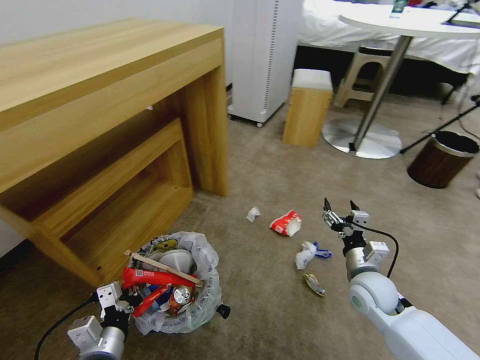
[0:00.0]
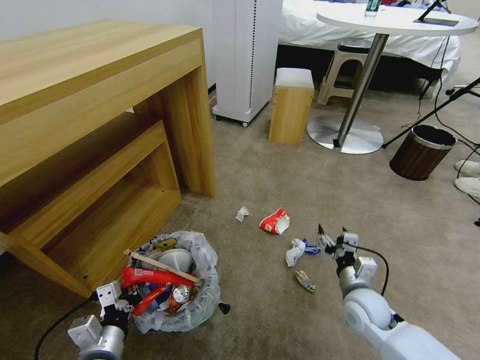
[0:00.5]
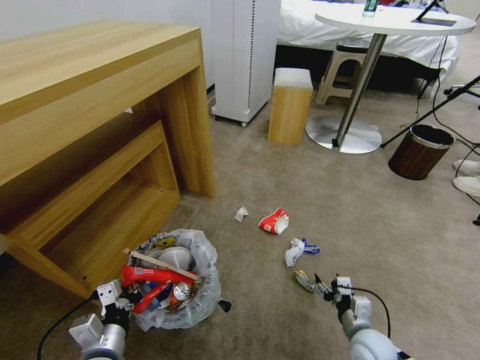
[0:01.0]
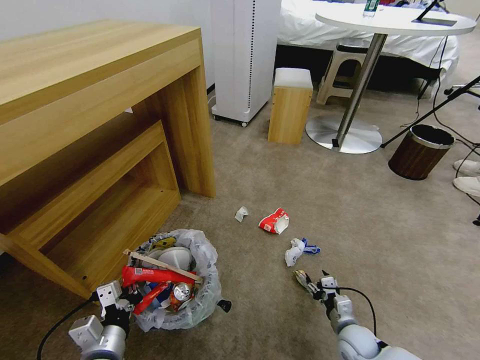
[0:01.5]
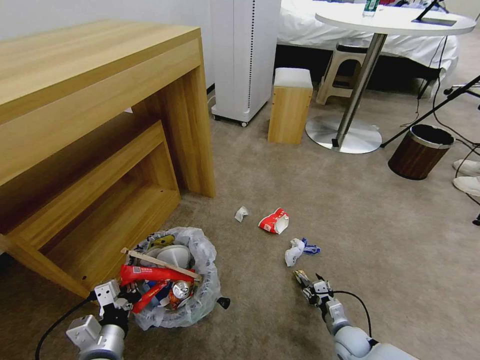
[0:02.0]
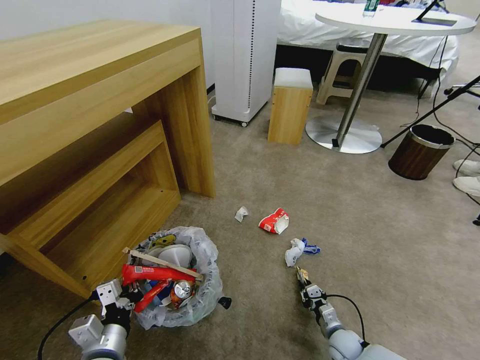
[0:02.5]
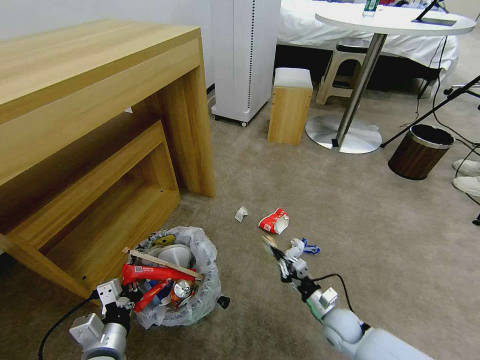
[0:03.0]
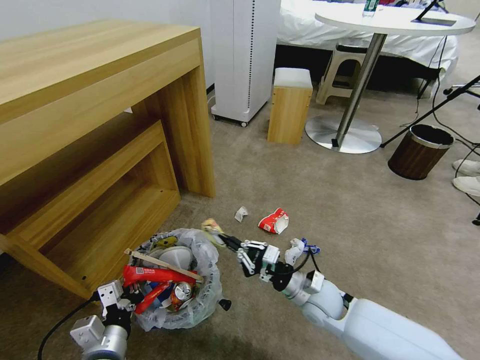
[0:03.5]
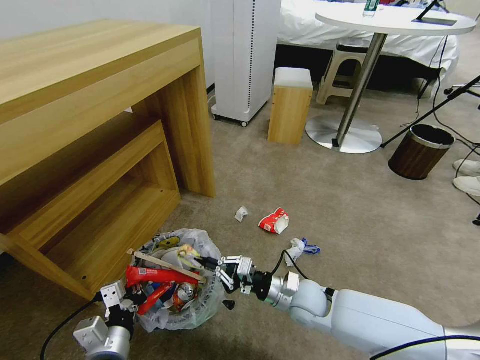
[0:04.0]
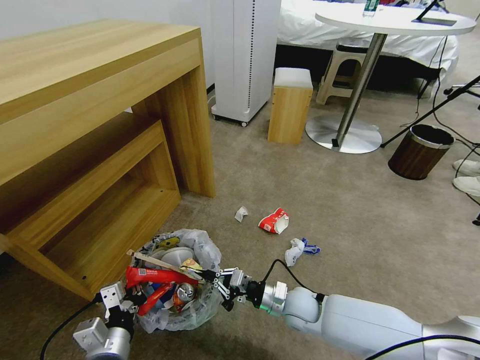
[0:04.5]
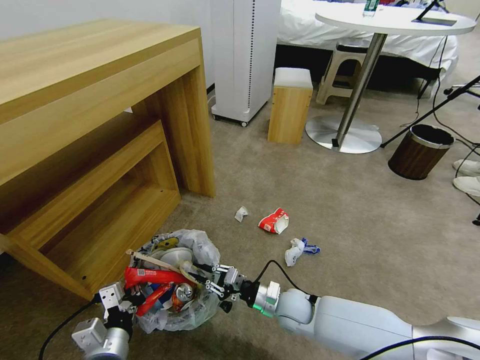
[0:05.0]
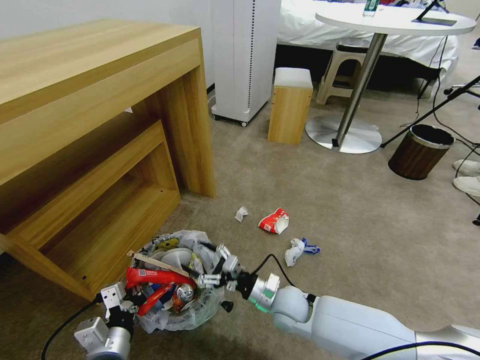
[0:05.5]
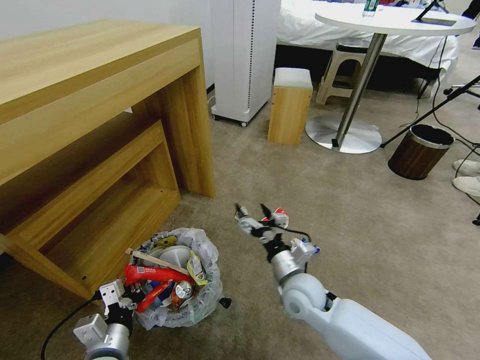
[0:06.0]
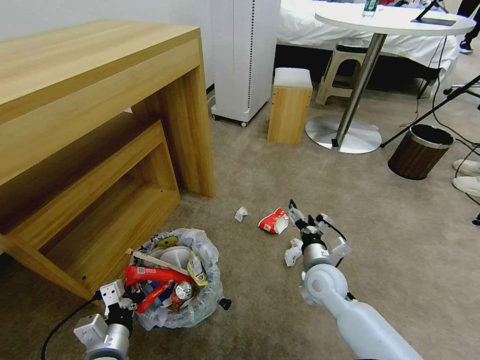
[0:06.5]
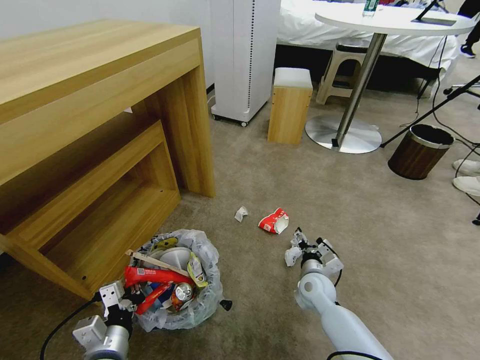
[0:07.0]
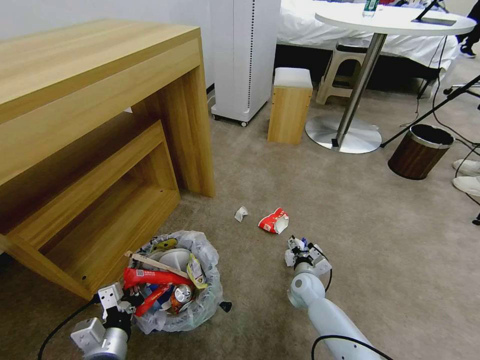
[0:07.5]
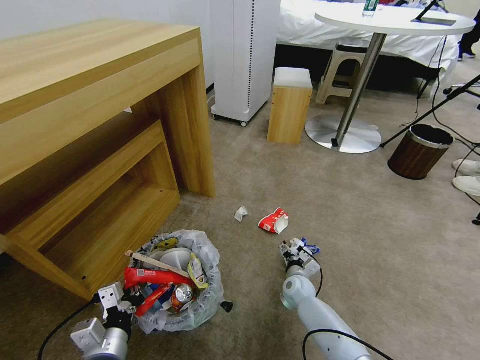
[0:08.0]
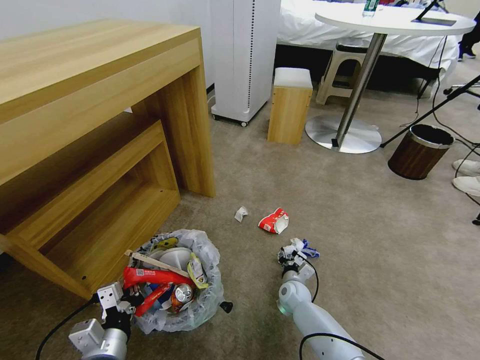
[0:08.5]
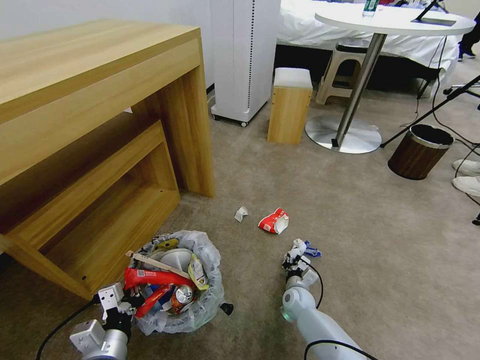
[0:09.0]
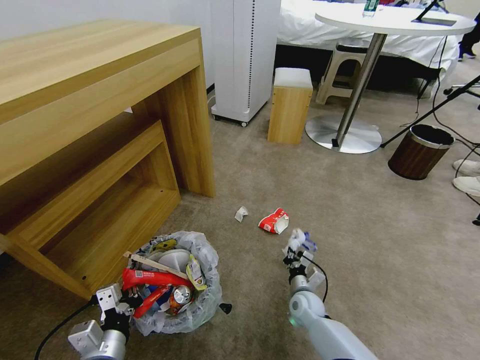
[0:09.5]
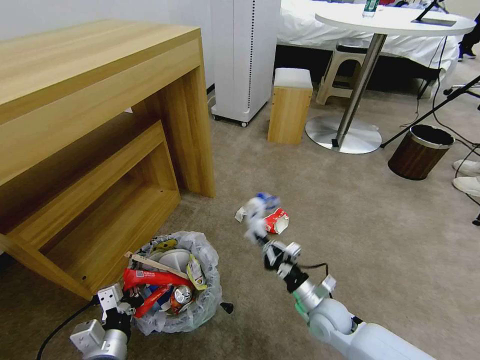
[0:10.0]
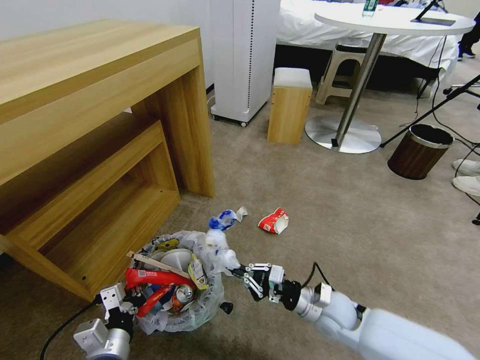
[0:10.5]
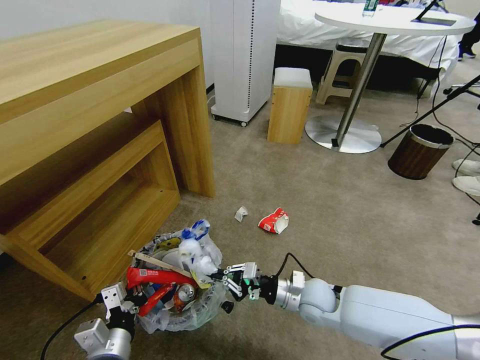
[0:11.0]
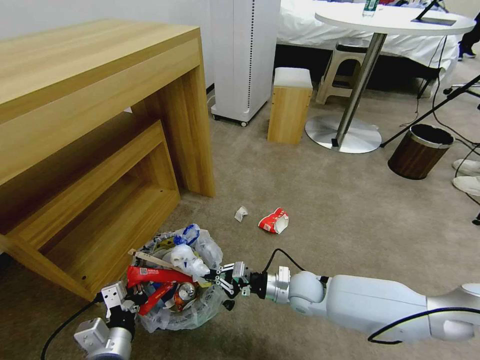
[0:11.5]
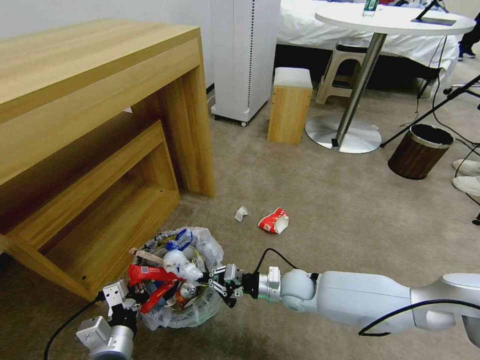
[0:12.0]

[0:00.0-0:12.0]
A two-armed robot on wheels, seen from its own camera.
Task of the whole recording: Pick up the trash bin and place the garbage on the floor into it.
0:00.0 to 0:02.0: The right gripper is displaced downward by roughly 20 cm.
0:02.0 to 0:04.0: The right gripper goes about 25 cm upward and to the left, and closes its fingers.
0:04.0 to 0:06.0: The right gripper opens up.
0:06.0 to 0:08.0: The right gripper is displaced downward and forward by about 20 cm.
0:08.0 to 0:10.0: The right gripper travels backward and upward by approximately 15 cm, and closes its fingers.
0:10.0 to 0:12.0: The right gripper moves to the left and forward, approximately 10 cm.

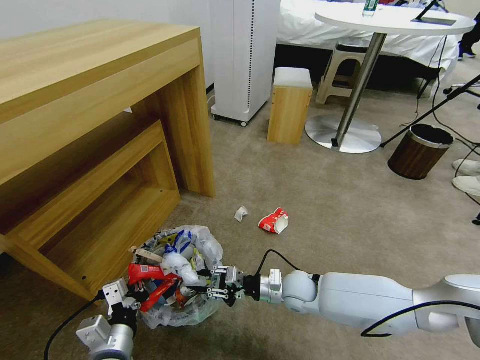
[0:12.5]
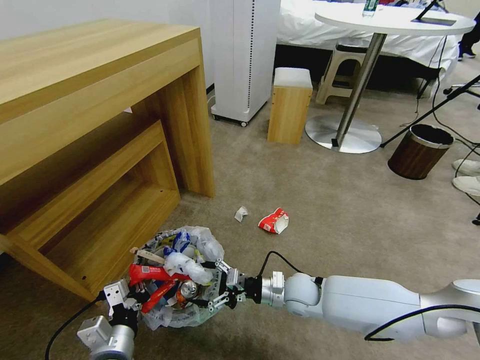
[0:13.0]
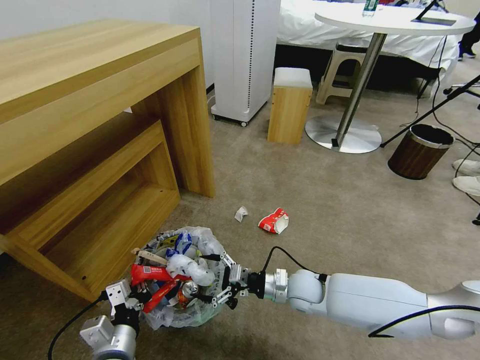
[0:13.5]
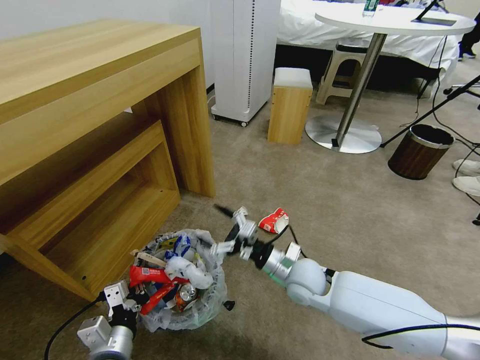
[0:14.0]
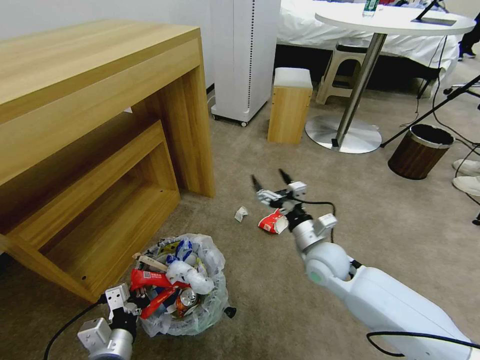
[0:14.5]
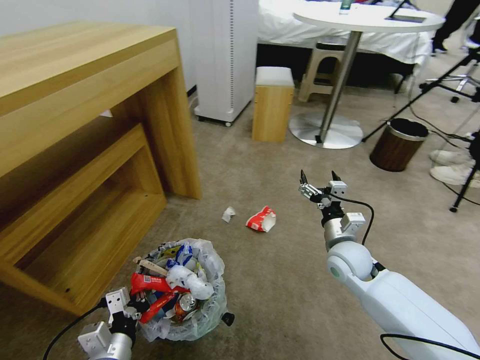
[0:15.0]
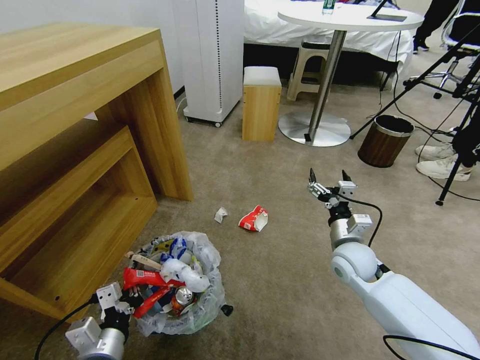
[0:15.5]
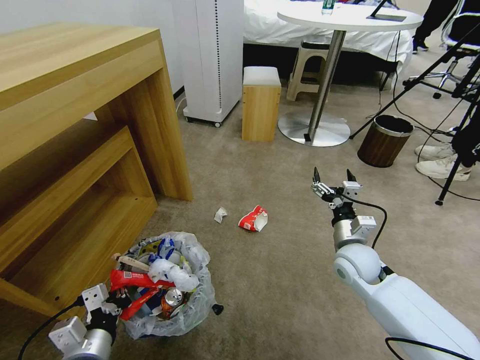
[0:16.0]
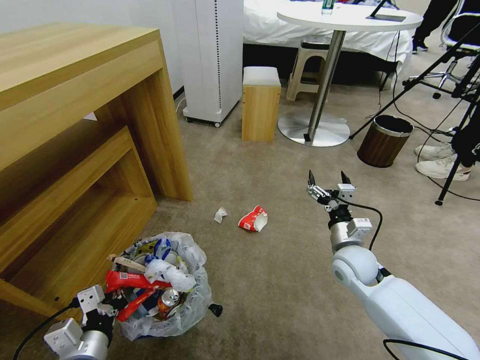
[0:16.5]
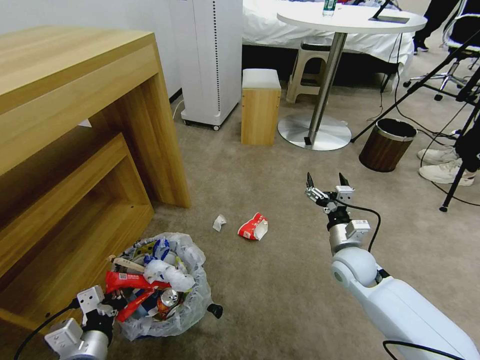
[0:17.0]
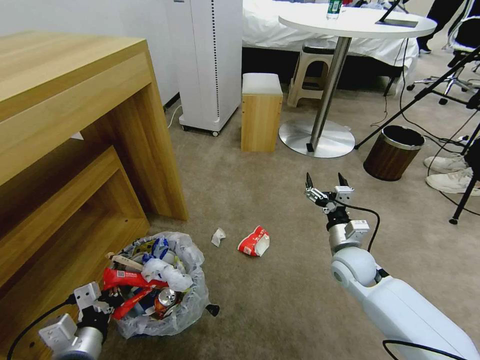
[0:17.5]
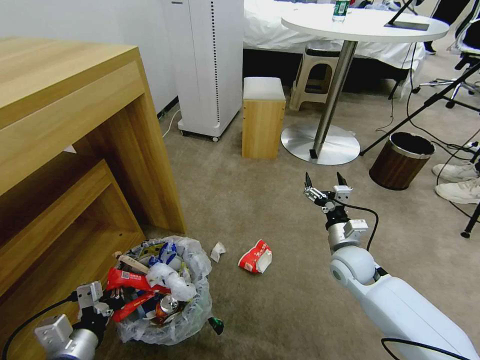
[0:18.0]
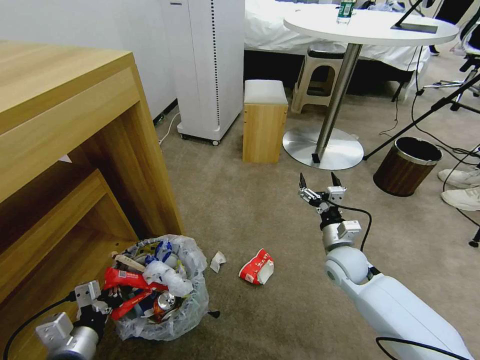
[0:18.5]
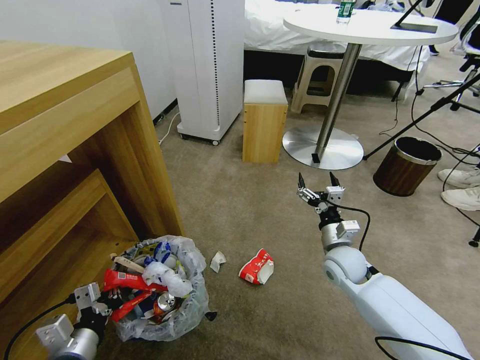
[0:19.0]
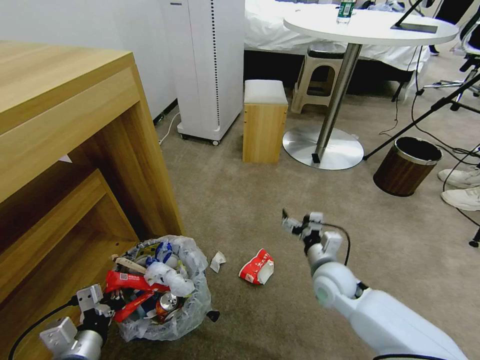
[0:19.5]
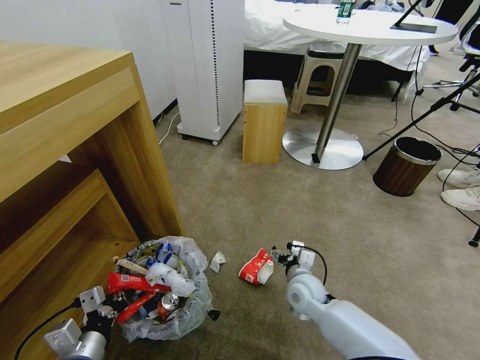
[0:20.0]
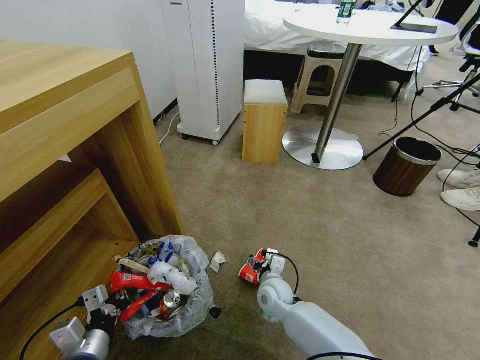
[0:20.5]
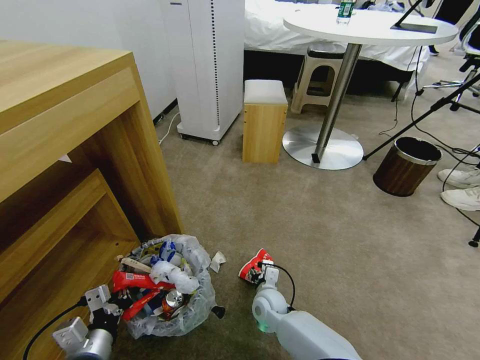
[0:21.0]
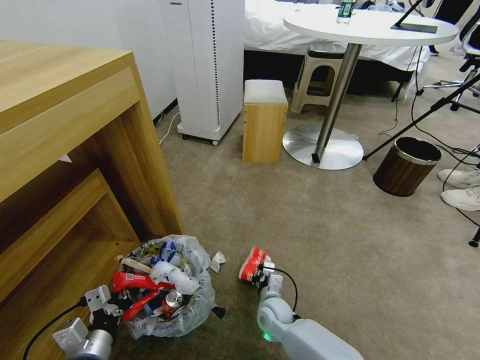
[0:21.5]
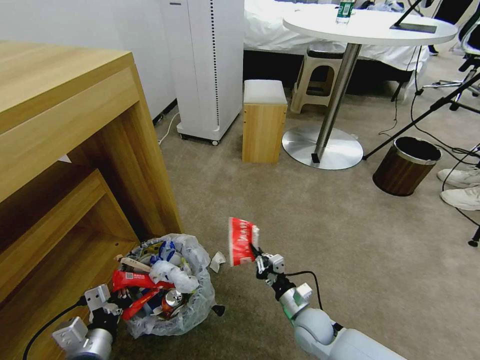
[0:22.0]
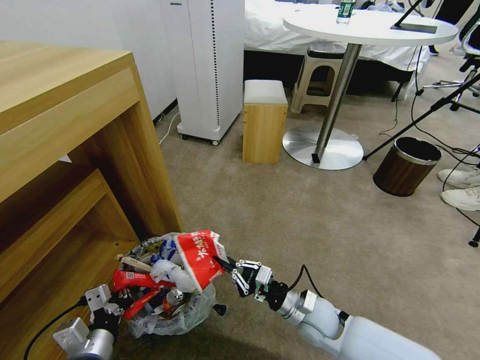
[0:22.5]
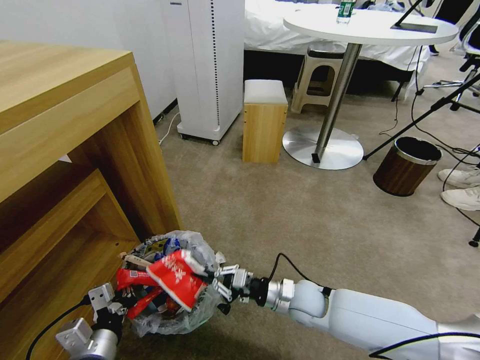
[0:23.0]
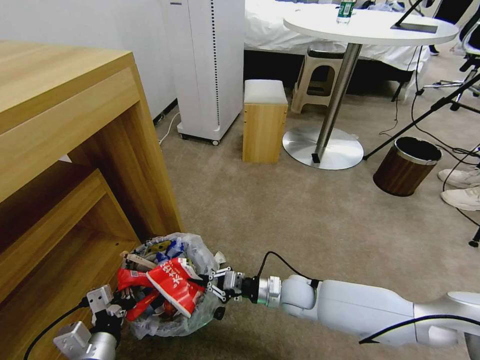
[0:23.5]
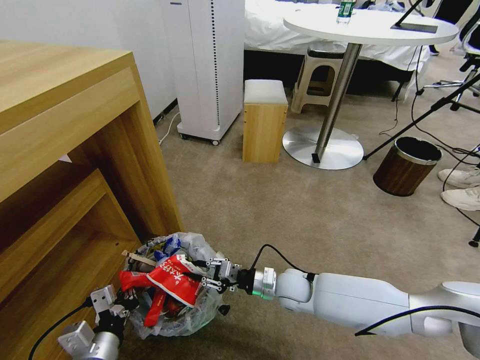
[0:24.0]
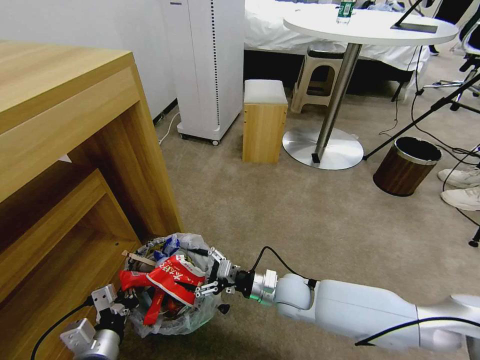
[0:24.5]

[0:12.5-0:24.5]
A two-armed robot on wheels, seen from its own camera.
Task of the whole recording: Pick up the trash bin and place the garbage on the floor into it.
0:12.5 to 0:14.5: The right gripper goes approximately 10 cm upward, and opens up.
0:14.5 to 0:16.5: The right gripper travels to the right by roughly 5 cm.
0:18.5 to 0:20.5: The right gripper goes some 20 cm to the left and downward.
0:20.5 to 0:22.5: The right gripper shifts roughly 10 cm to the right and backward, and closes.
0:22.5 to 0:24.5: The right gripper shifts some 10 cm to the left and forward, and opens.

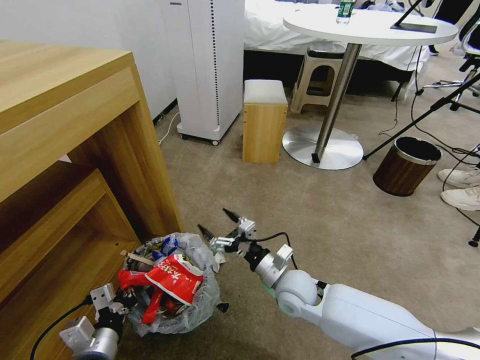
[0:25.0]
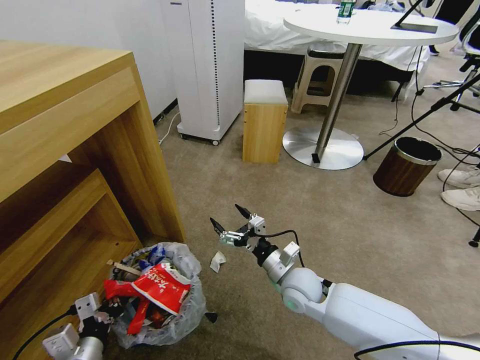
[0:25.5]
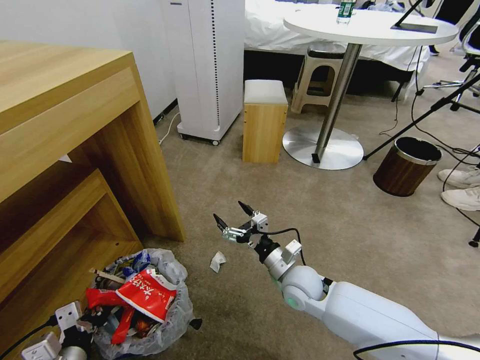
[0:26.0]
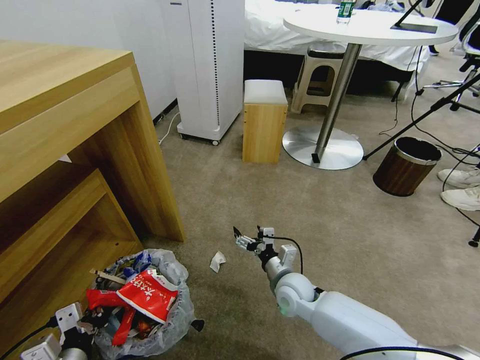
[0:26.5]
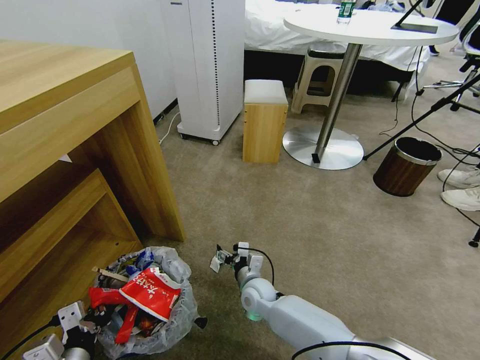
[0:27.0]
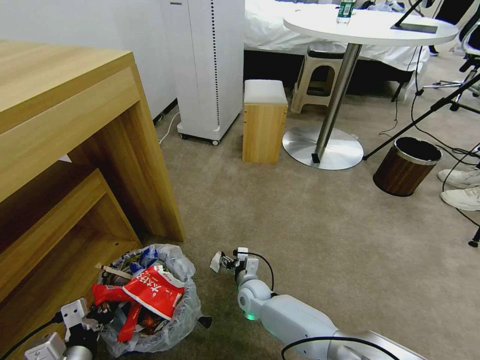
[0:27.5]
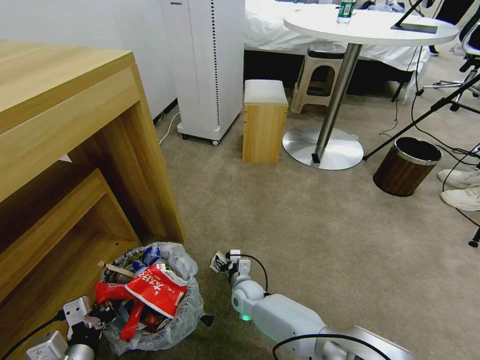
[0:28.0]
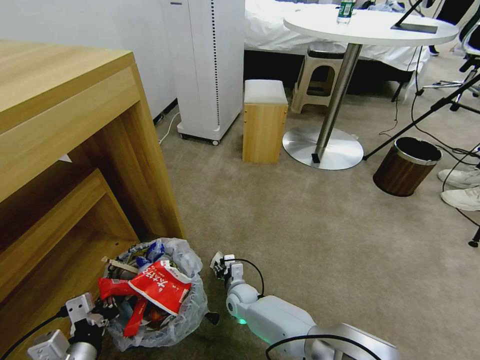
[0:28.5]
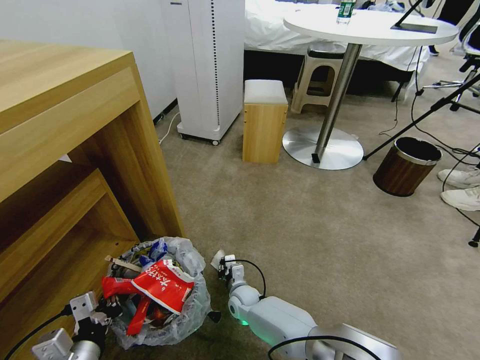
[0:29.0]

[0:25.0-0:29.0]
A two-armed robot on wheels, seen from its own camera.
Task of the whole recording: Pick up the trash bin and place the garbage on the floor into it.
0:25.0 to 0:27.0: The right gripper is displaced downward and to the left by roughly 15 cm.
0:27.0 to 0:29.0: The right gripper is displaced downward by about 10 cm, and closes up.
